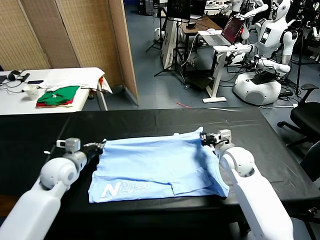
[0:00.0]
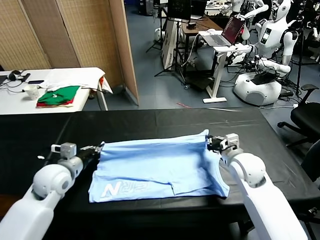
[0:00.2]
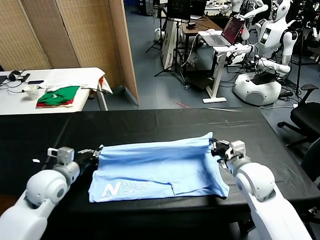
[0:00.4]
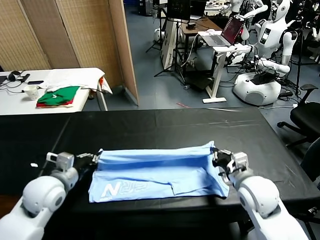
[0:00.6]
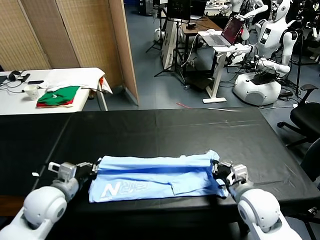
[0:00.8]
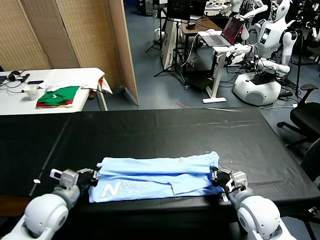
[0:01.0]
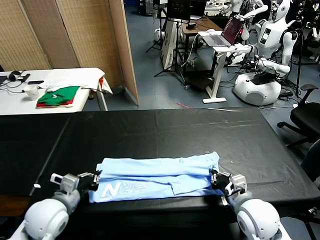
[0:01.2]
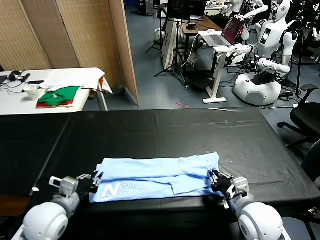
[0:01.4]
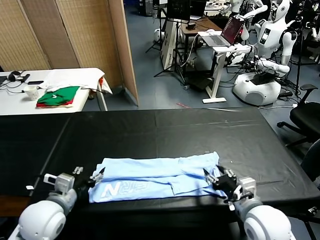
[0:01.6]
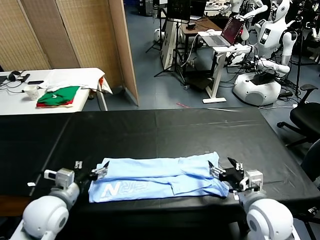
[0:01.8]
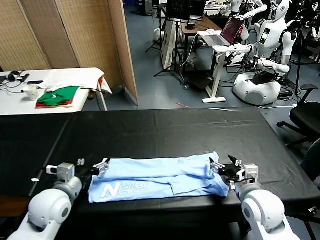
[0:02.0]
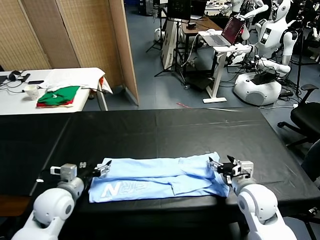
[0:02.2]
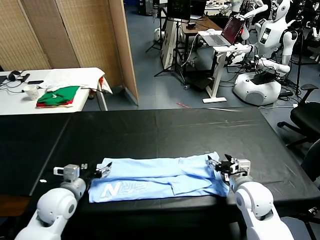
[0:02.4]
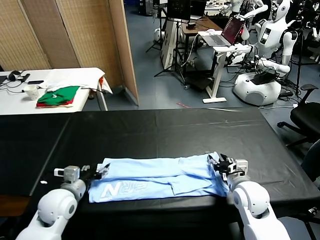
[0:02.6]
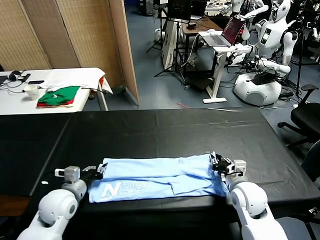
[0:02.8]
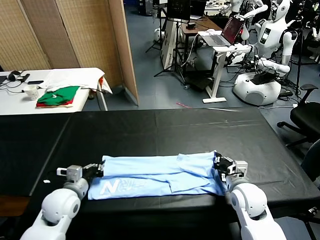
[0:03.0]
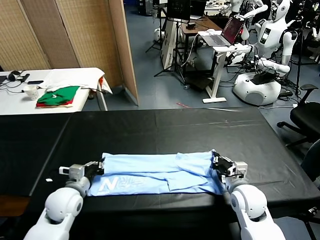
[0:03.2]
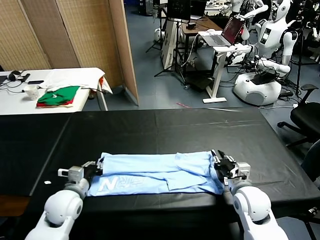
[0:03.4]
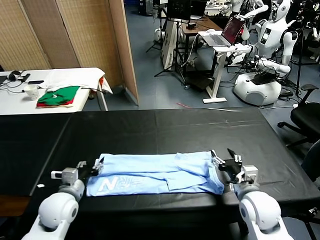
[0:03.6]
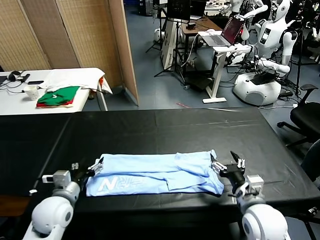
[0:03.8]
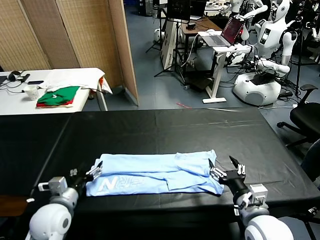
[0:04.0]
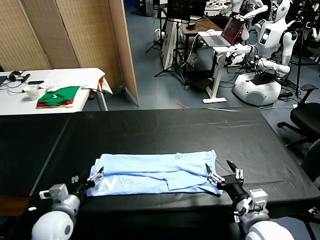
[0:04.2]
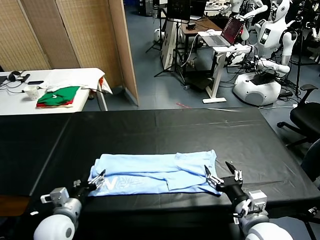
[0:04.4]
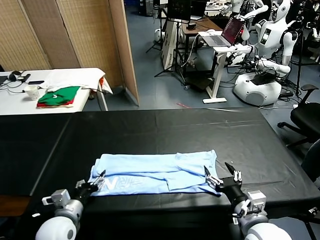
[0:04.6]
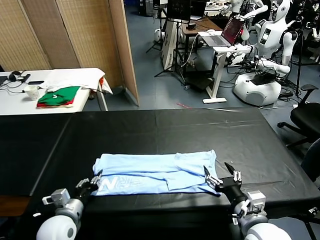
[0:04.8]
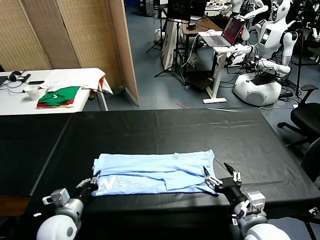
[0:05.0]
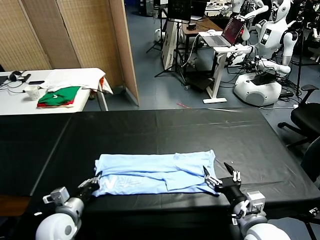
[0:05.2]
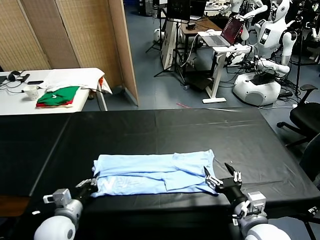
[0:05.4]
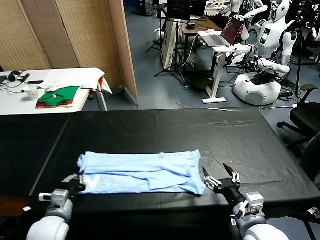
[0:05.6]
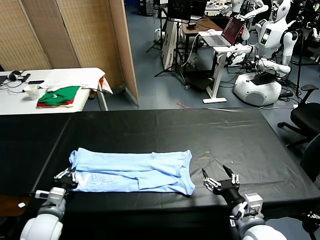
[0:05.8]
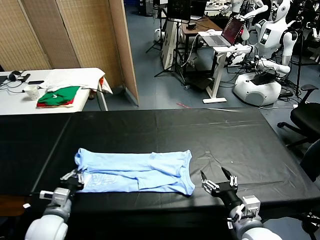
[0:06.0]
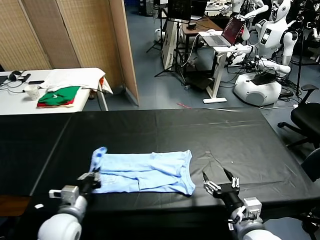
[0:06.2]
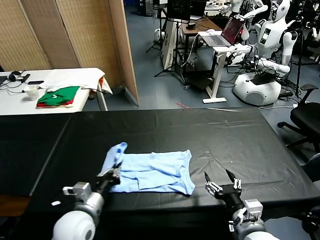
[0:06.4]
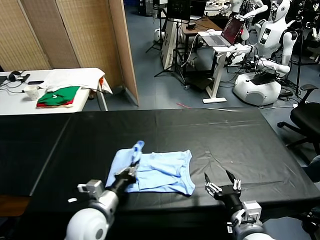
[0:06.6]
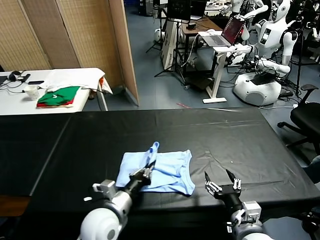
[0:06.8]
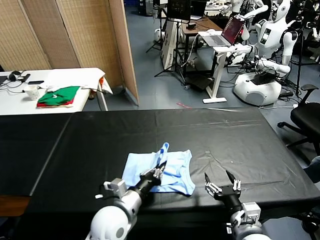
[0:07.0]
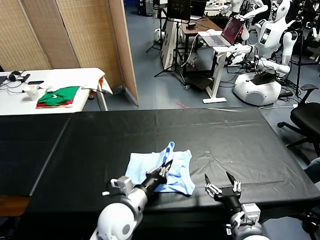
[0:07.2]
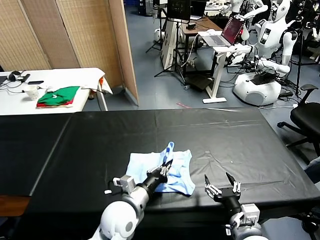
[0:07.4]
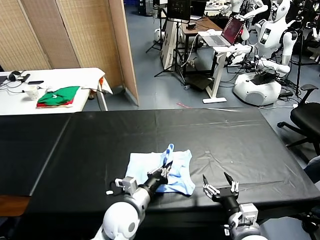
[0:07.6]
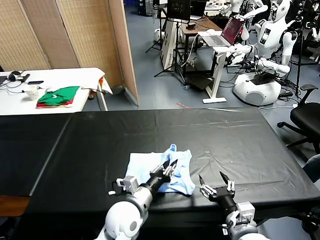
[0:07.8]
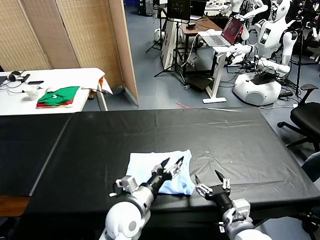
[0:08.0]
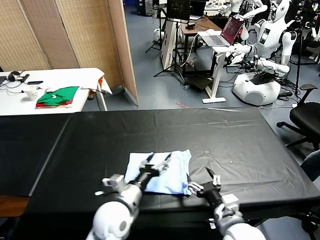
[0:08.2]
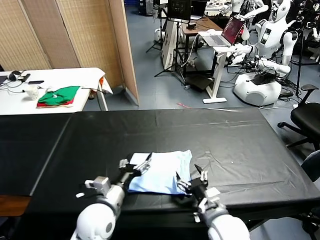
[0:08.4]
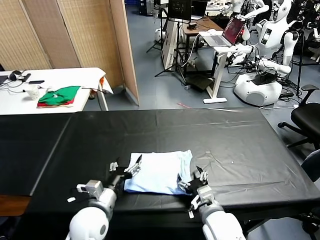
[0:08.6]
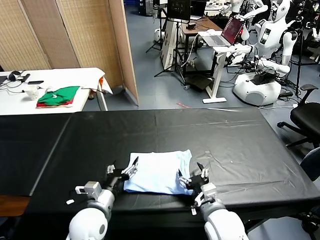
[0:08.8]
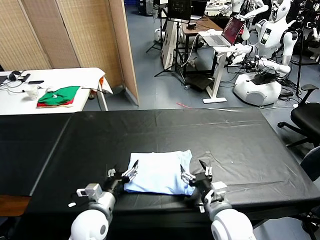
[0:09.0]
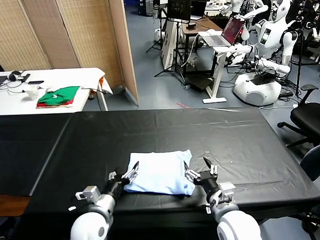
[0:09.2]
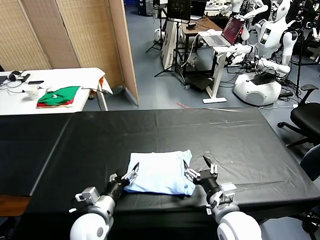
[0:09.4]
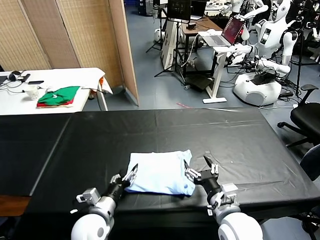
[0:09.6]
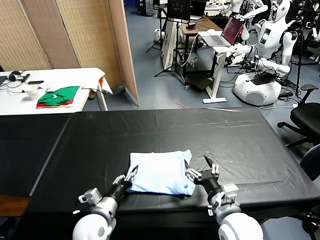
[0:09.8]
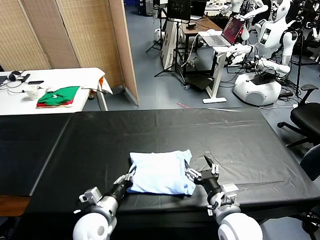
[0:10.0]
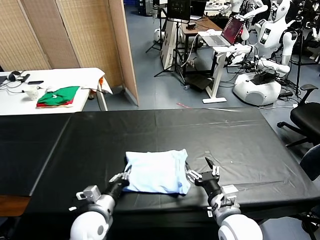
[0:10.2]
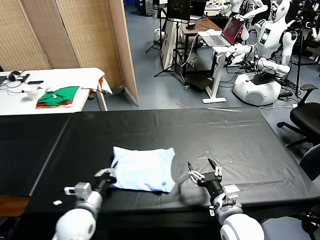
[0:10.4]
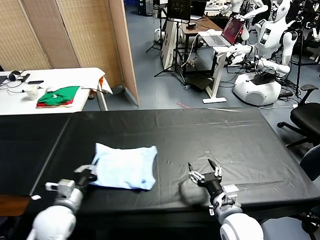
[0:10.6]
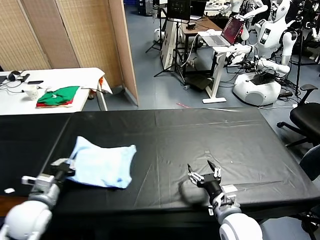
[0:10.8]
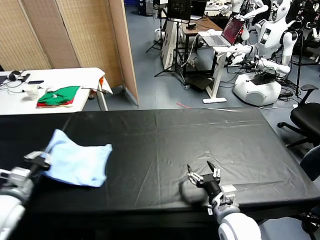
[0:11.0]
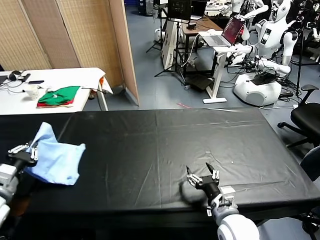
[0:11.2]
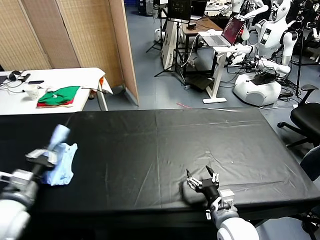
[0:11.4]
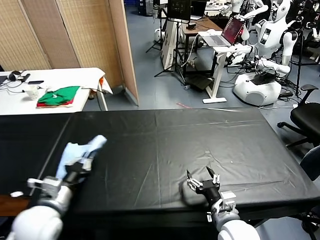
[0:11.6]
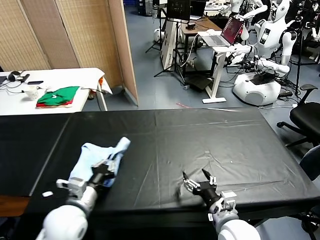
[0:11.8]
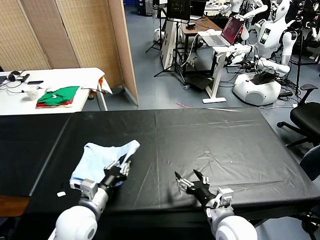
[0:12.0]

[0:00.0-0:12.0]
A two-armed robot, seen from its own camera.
Task of the whole recording: fold and organize the clothes.
Step, 0:00.0 to 0:01.4: use both grippers to drag the upper edge of the fabric backward and fold it over the lower edge.
Step, 0:01.8 to 0:05.2: use the left gripper to clamp the left edge of the fabric.
Step, 0:05.4 to 0:08.0: use the left gripper to drag the left edge of the fabric to the left and folds it over the right edge.
0:00.0 to 0:01.6: The grippers both shift backward by some 15 cm. The right gripper opens its fingers. The left gripper opens its fingers.
0:01.6 to 0:03.0: Both grippers move downward and forward, roughly 10 cm. The left gripper closes; the right gripper closes its fingers.
0:03.0 to 0:04.4: The right gripper shifts roughly 15 cm backward and upward, and opens up. Meanwhile the left gripper moves backward, about 5 cm, and opens its fingers.
0:04.4 to 0:06.0: The left gripper closes.
0:06.0 to 0:07.6: The left gripper goes about 20 cm to the right.
0:07.6 to 0:09.0: The right gripper is displaced forward by about 5 cm. The left gripper is displaced to the left by some 10 cm, and opens up.
0:09.0 to 0:10.4: The left gripper closes up.
0:10.4 to 0:12.0: The left gripper is displaced upward by about 5 cm, and travels to the left and back again, approximately 20 cm each way.

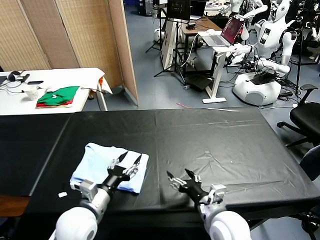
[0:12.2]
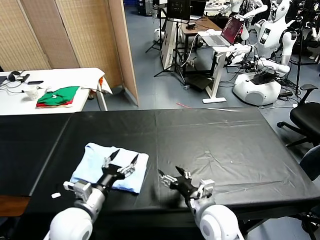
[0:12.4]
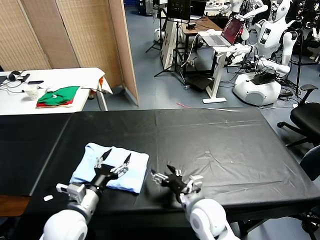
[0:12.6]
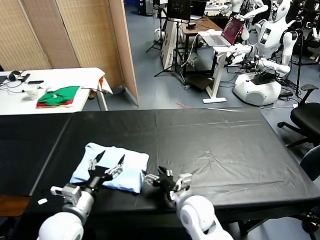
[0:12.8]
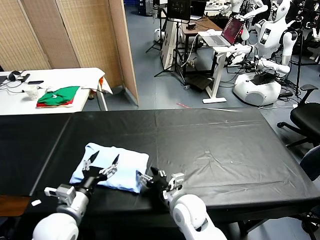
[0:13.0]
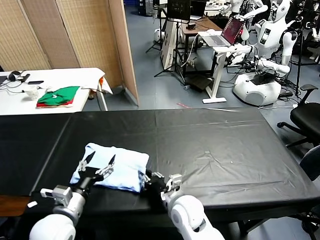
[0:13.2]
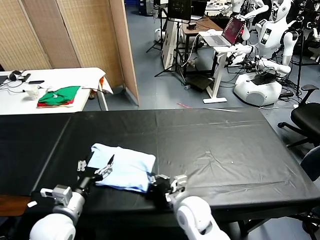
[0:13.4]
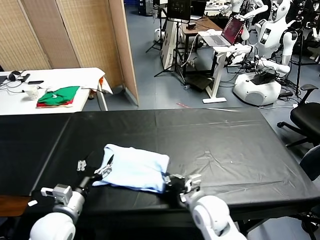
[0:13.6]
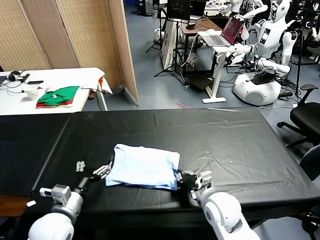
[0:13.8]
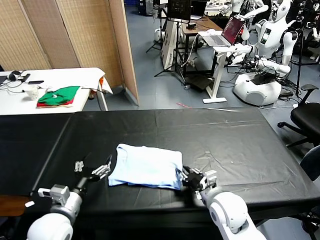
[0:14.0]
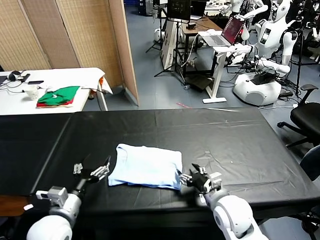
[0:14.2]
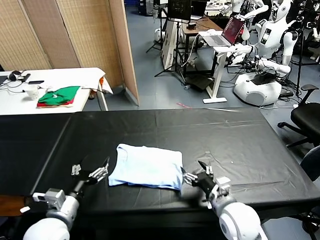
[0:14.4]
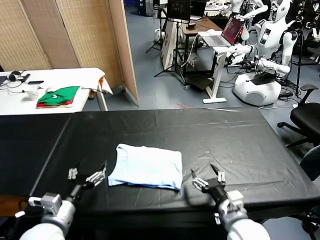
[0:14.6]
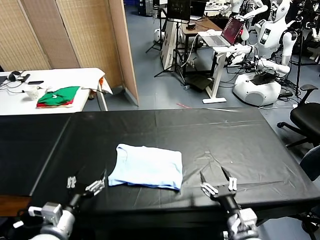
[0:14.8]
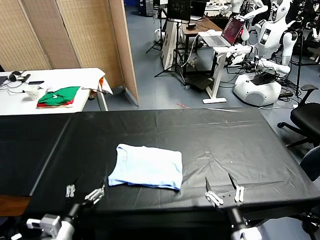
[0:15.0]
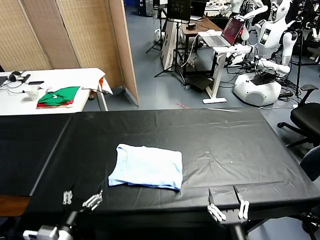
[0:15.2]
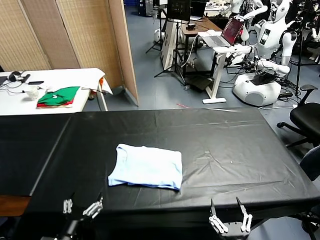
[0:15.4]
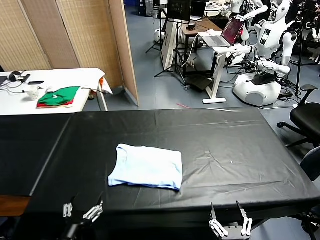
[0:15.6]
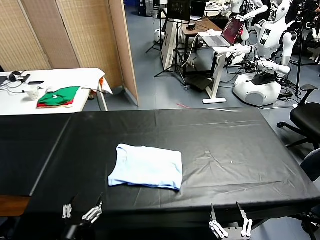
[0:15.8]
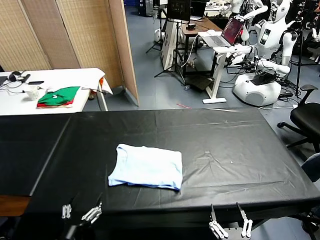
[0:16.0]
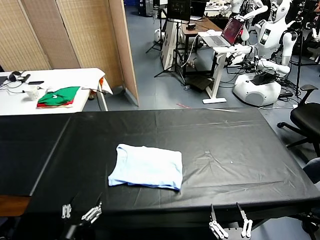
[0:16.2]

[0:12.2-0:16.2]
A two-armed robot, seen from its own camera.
Task of the whole recording: fold and organize the clothes.
Step, 0:12.4 to 0:14.0: Drag the clothes to the center of the table.
0:12.2 to 0:13.6: The right gripper moves forward, approximately 5 cm, and closes its fingers. Meanwhile the left gripper travels to the left by approximately 5 cm, and opens its fingers.
0:13.6 to 0:14.8: The right gripper heads backward and to the right, covering roughly 15 cm, and opens up.
0:14.8 to 0:16.2: The right gripper heads backward, covering about 15 cm, while the left gripper travels backward by some 10 cm.
